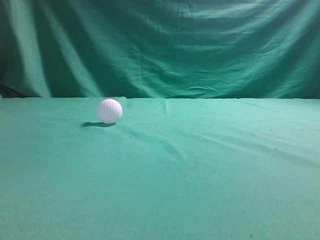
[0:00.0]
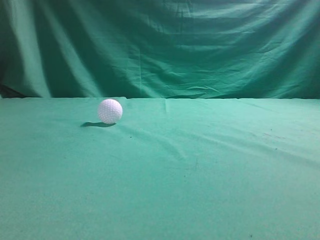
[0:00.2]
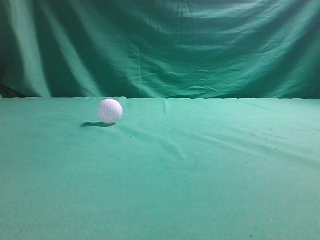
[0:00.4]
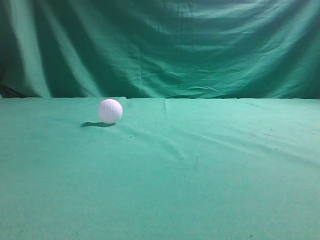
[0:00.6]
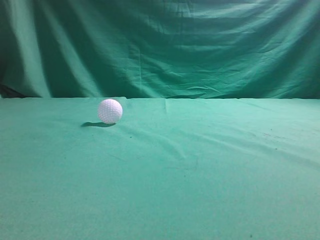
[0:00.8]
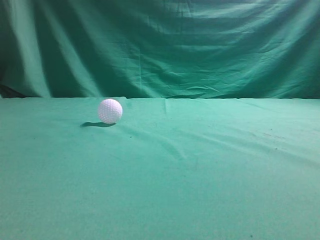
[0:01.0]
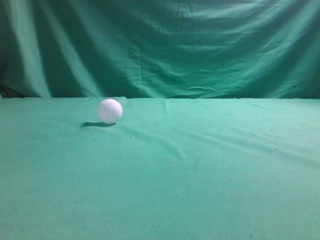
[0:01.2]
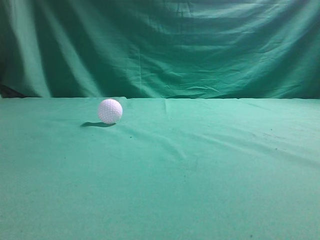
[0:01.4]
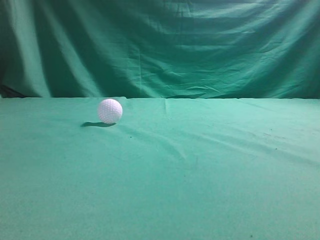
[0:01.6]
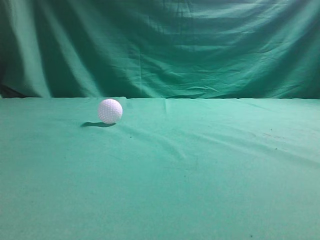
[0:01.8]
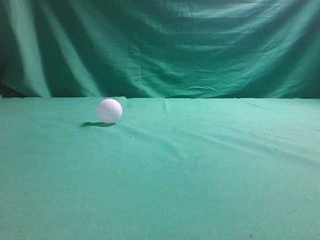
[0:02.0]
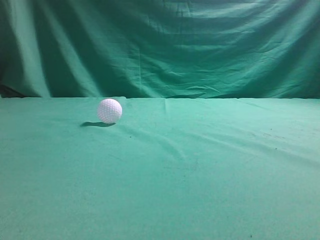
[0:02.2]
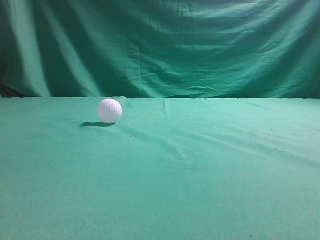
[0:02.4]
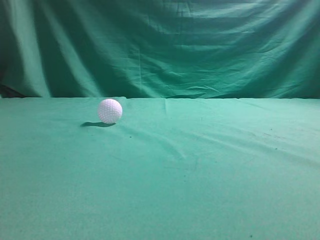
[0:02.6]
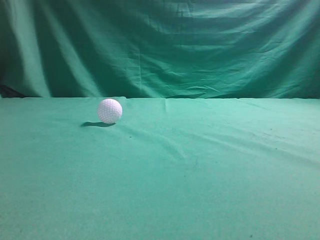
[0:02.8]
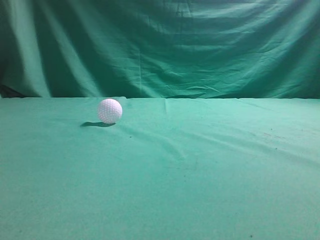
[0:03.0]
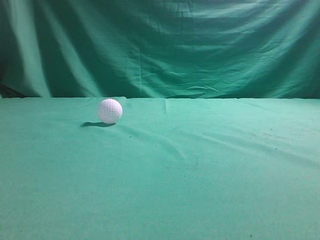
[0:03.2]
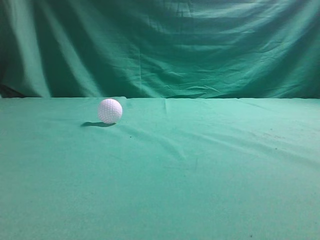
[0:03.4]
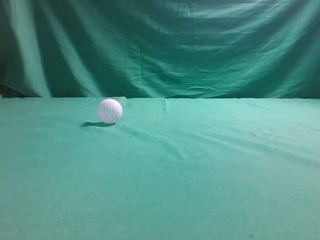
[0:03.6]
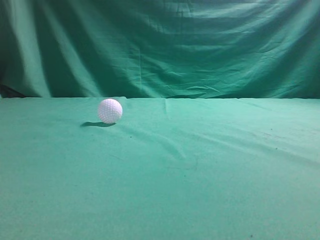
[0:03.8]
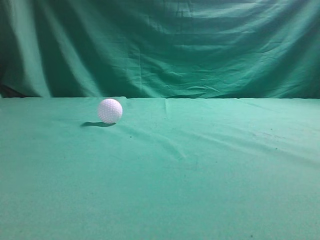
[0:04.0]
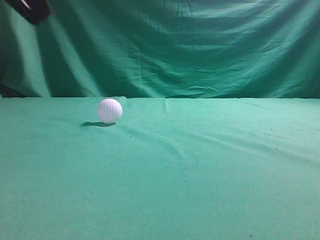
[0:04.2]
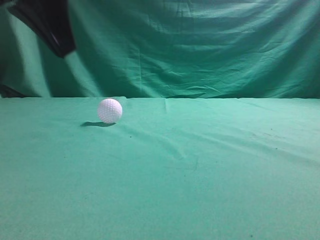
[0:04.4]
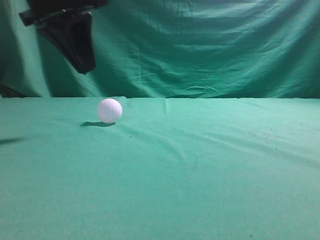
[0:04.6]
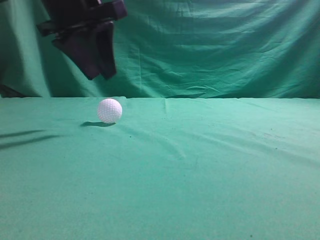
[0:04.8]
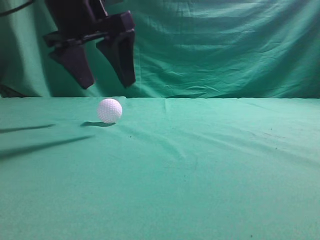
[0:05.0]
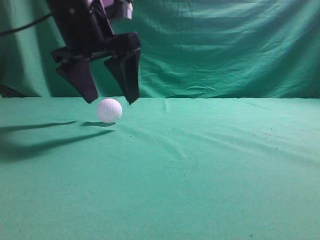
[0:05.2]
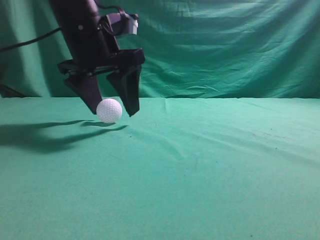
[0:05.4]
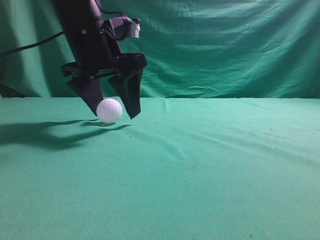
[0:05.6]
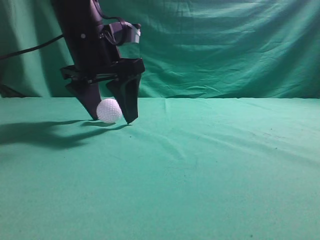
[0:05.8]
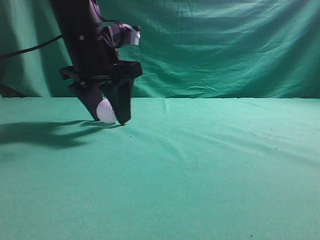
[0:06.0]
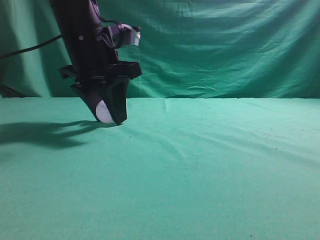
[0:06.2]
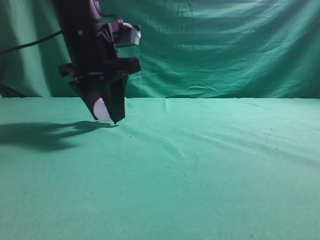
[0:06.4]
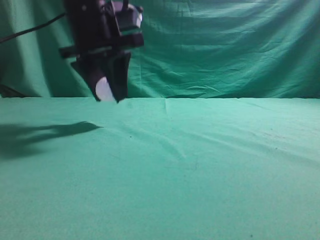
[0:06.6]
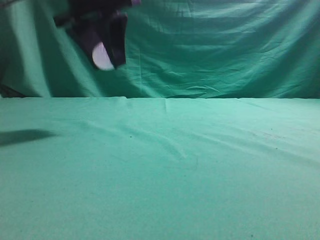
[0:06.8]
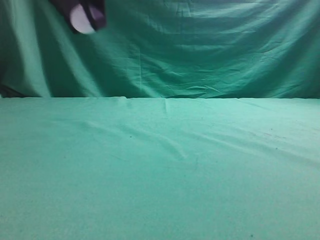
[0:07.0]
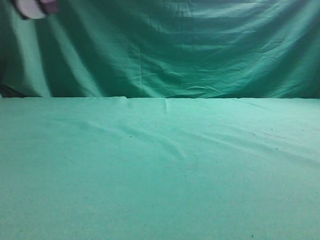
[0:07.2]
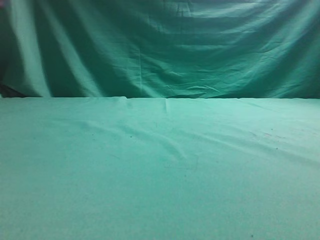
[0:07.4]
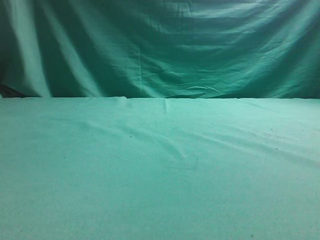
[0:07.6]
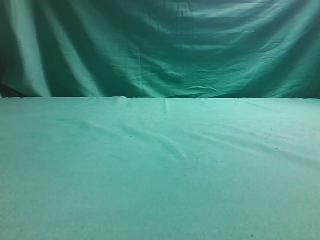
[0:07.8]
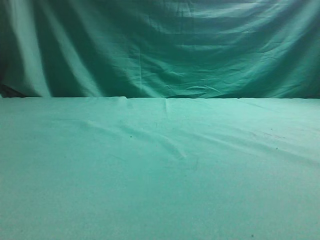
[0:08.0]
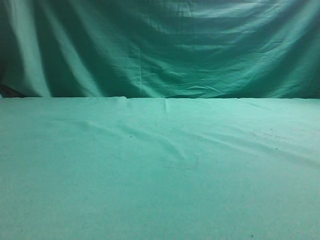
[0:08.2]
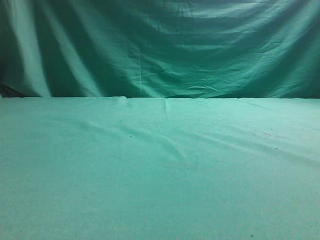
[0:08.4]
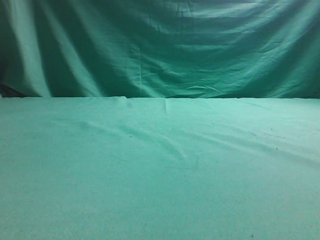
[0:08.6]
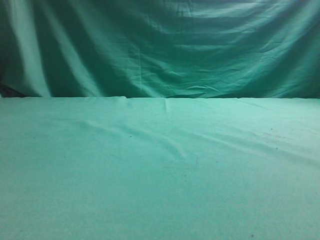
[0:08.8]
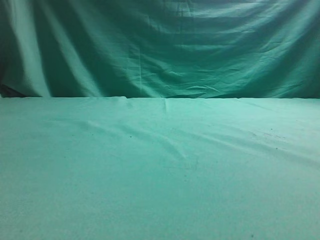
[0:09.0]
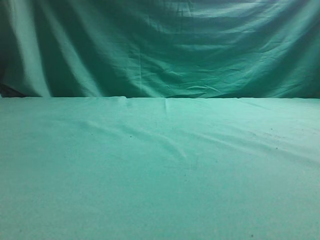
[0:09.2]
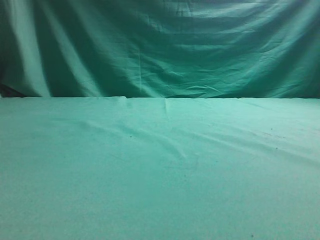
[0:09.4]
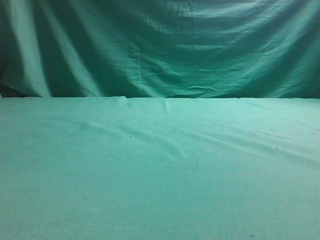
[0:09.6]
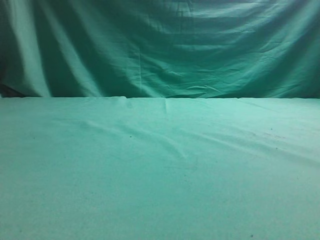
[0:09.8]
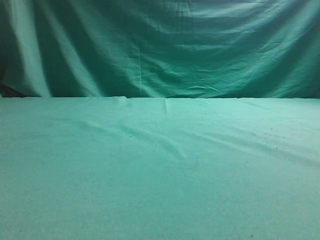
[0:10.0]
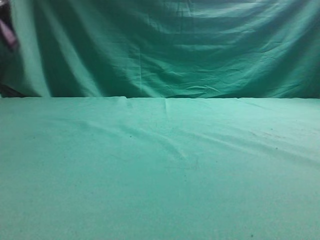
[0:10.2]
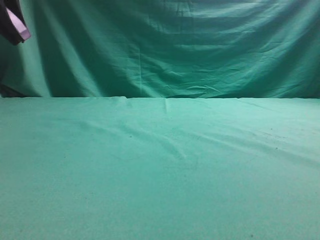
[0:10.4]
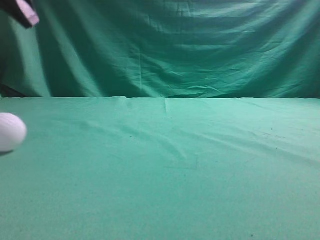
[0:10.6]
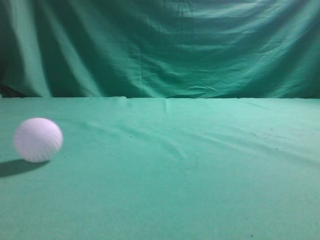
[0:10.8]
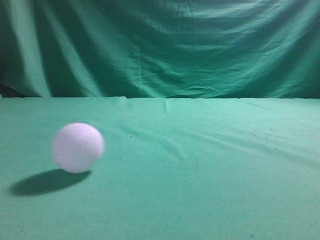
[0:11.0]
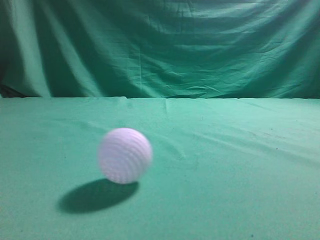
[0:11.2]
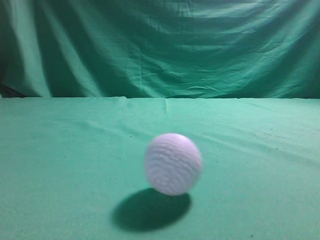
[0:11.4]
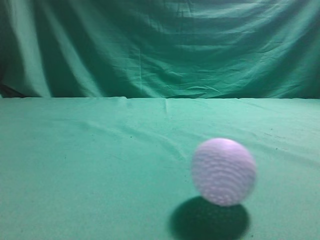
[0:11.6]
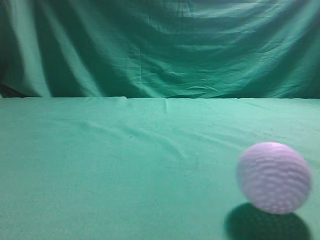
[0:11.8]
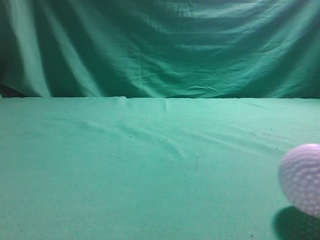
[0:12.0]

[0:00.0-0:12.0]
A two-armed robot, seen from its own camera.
Task of the whole recording: pick up the ball and place it on the plate, then pick up the ball from the plate and put it in the center of the table.
Step, 0:00.0 to 0:06.6: Grab the spherical object with your left arm.
Step, 0:06.8 to 0:09.8: Place the sphere on the white object.
0:03.0 to 0:04.4: The left gripper moves forward and to the right, approximately 25 cm.
0:04.4 to 0:06.0: The left gripper moves forward and downward, approximately 15 cm, and opens its fingers.
0:06.0 to 0:07.6: The right gripper goes approximately 10 cm upward; the left gripper is displaced to the left, upward and backward by about 25 cm.
0:09.0 to 0:10.4: The left gripper is displaced to the right, upward and forward by some 10 cm, and closes.
0:10.4 to 0:12.0: The left gripper moves backward, some 25 cm.

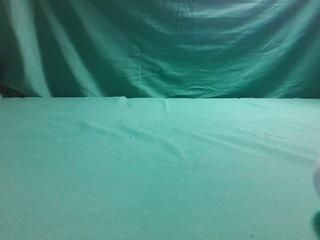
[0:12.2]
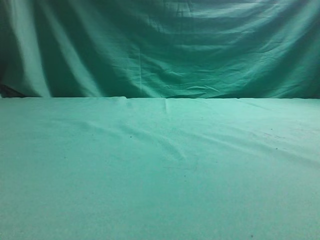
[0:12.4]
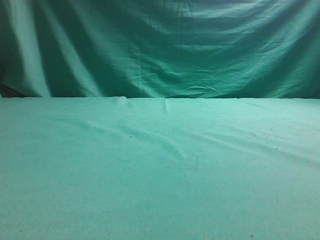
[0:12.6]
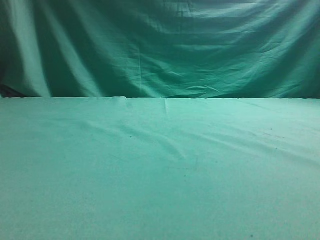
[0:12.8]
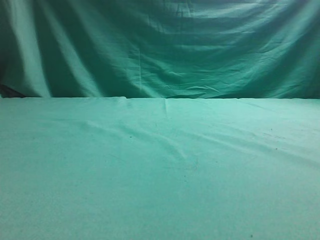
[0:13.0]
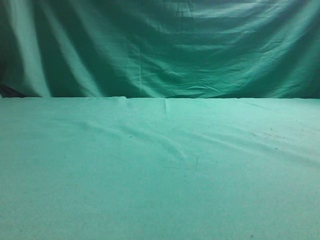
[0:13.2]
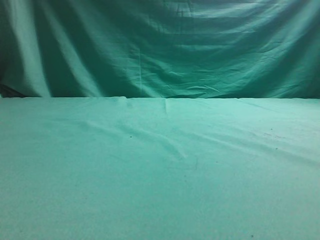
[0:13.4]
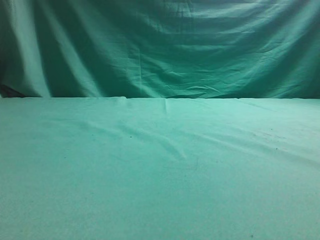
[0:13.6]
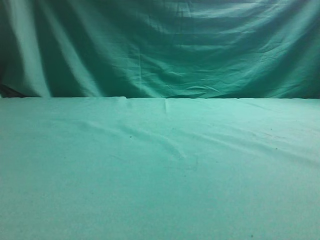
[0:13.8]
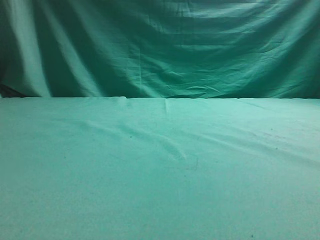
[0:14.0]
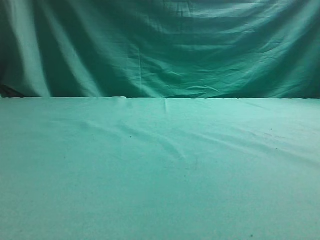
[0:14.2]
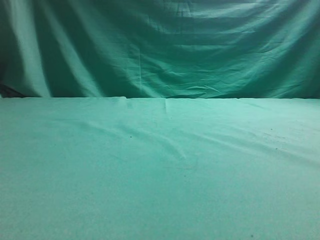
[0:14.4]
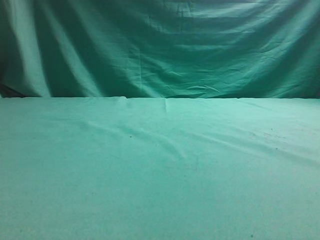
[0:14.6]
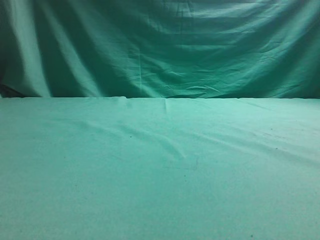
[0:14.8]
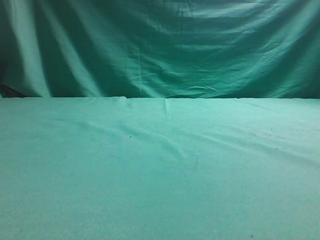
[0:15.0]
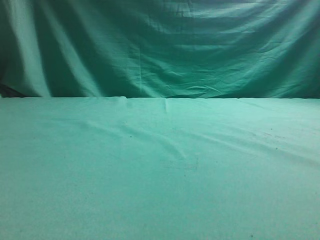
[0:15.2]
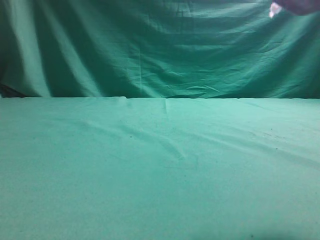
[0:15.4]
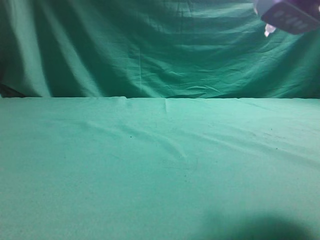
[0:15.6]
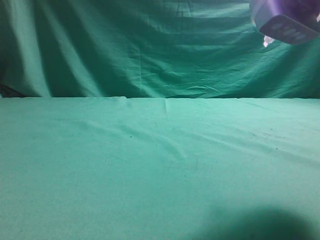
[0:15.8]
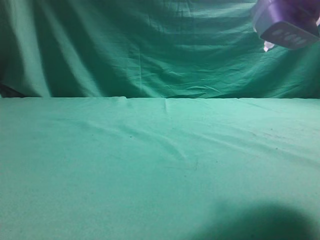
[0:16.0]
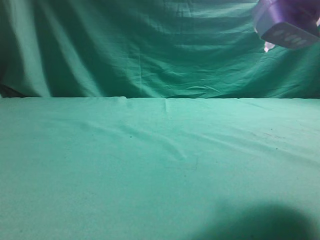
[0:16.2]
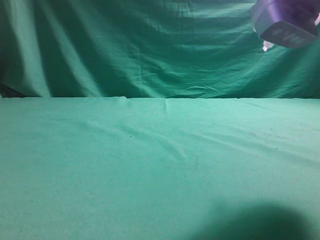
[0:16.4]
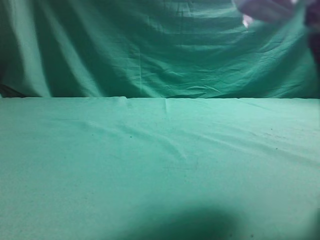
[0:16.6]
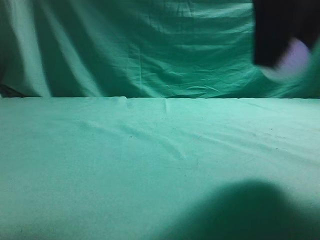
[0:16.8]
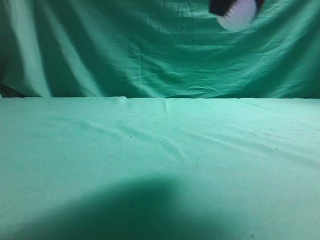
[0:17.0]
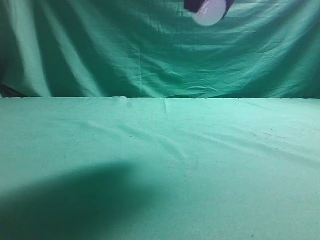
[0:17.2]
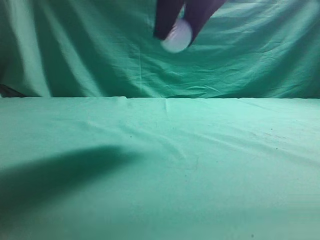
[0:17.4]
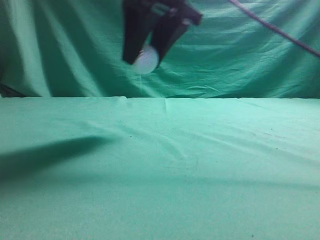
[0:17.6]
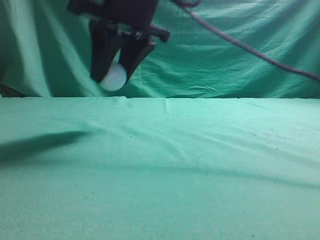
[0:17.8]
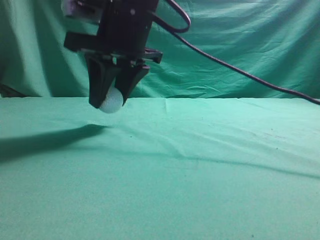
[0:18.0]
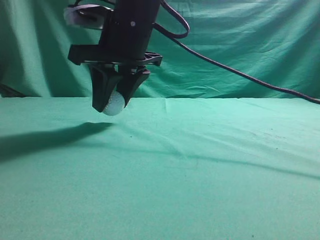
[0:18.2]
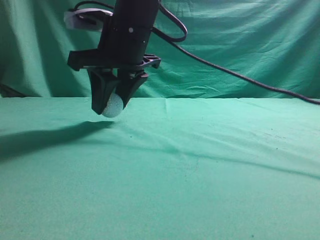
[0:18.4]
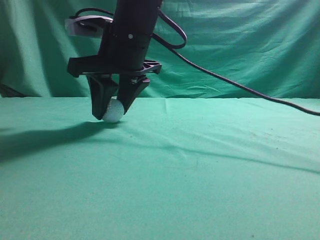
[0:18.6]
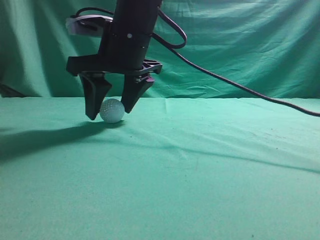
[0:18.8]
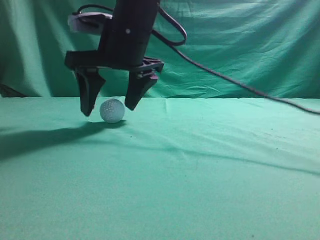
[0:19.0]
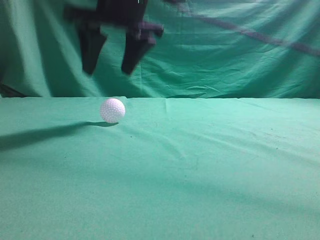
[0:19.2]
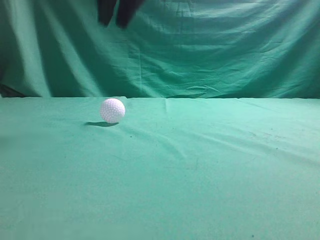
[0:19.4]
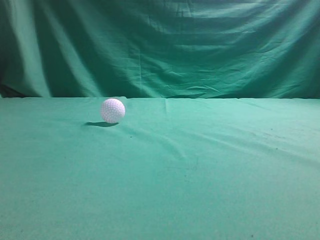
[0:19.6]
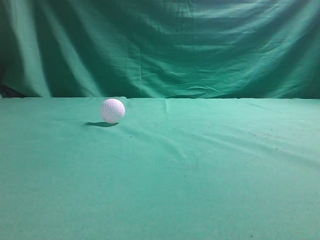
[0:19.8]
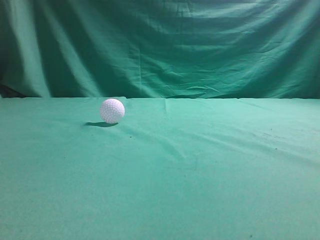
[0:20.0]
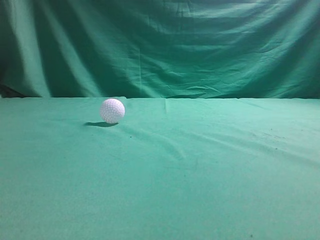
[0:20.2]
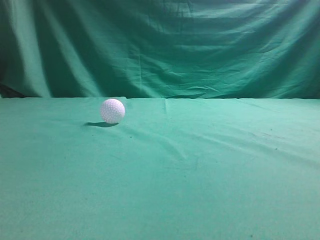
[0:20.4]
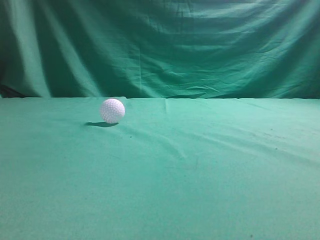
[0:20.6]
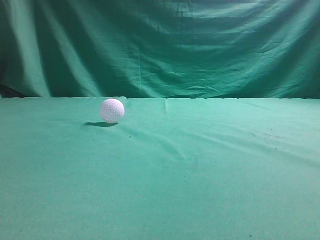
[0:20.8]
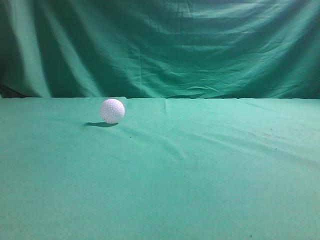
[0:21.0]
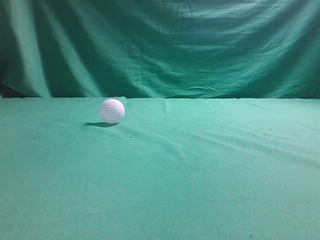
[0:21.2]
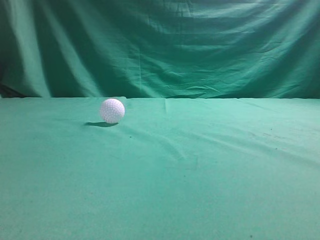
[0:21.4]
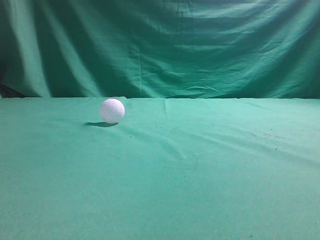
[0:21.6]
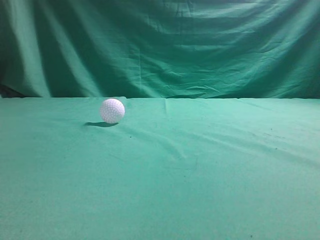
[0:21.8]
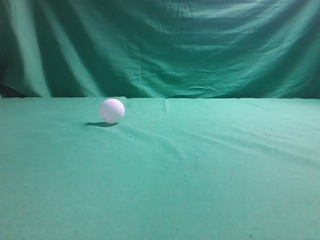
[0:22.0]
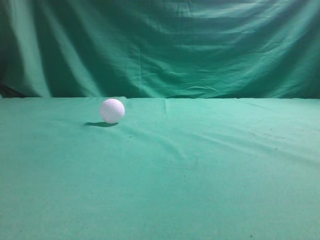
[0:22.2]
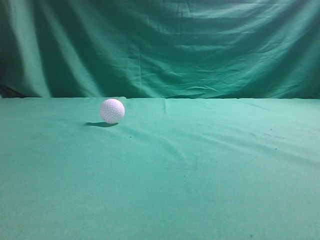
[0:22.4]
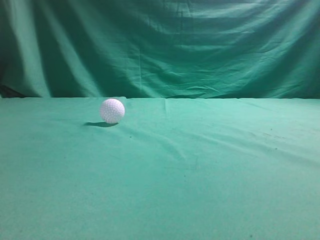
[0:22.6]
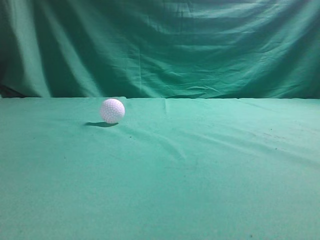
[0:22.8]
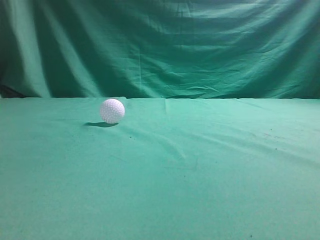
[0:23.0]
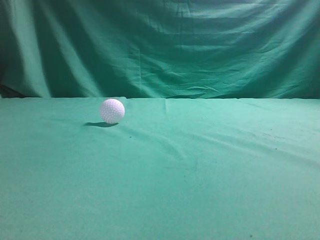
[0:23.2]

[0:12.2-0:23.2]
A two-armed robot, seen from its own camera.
Task of the whole recording: pick up the ball and place it on the plate, then pick up the ball from the plate and put it in the center of the table.
Step, 0:12.2 to 0:16.6: Grab the rolling spherical object.
Step, 0:16.8 to 0:19.0: Put the picked-up object on the table.
0:13.8 to 0:15.4: The right gripper changes place by about 5 cm, and opens its fingers.
0:15.4 to 0:17.0: The right gripper goes roughly 15 cm upward, forward and to the left, and closes its fingers. The left gripper moves backward, approximately 5 cm.
0:17.0 to 0:18.4: The right gripper shifts some 20 cm to the left, downward and forward.
0:18.4 to 0:20.0: The right gripper moves upward, backward and to the right, approximately 40 cm, and closes its fingers.
